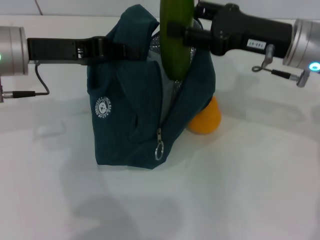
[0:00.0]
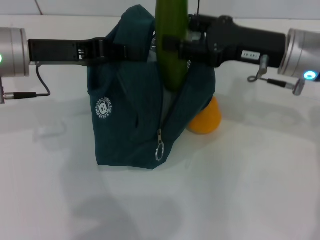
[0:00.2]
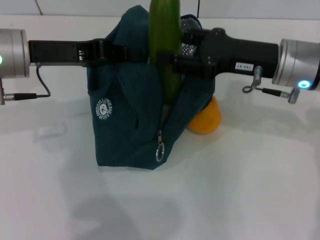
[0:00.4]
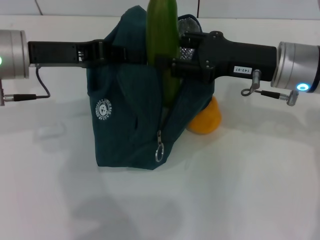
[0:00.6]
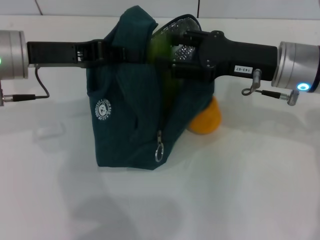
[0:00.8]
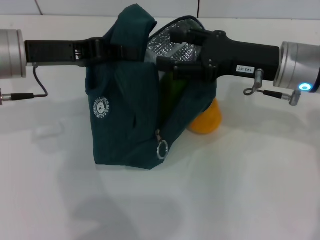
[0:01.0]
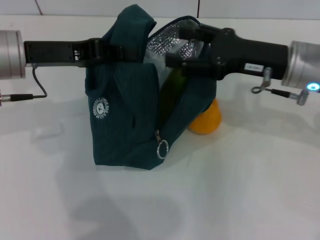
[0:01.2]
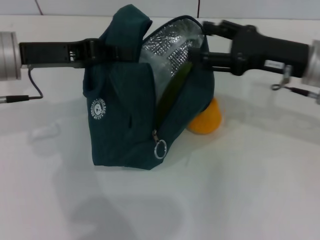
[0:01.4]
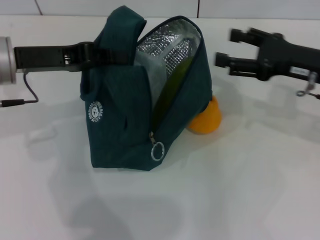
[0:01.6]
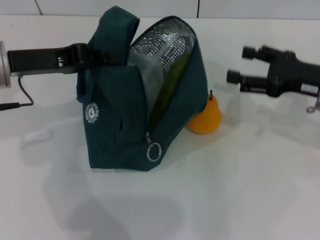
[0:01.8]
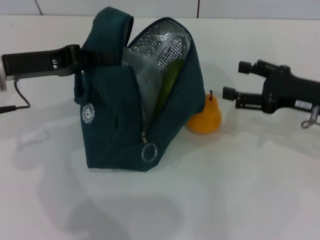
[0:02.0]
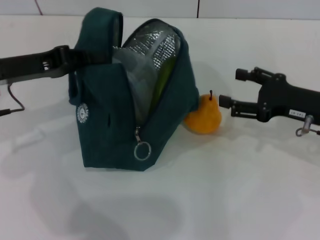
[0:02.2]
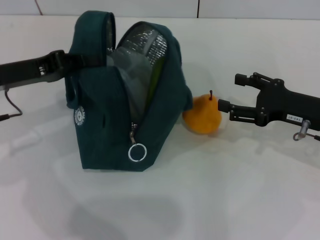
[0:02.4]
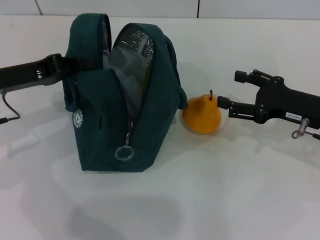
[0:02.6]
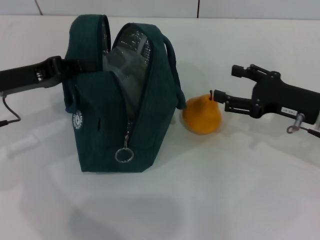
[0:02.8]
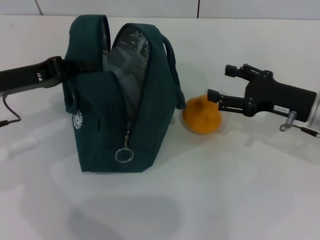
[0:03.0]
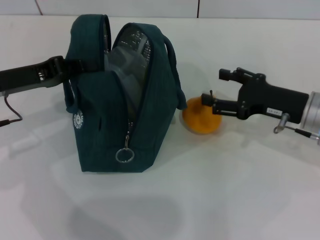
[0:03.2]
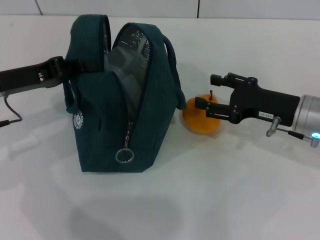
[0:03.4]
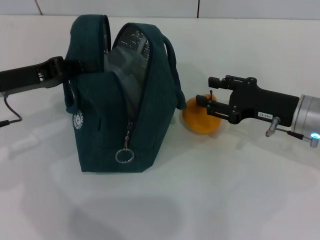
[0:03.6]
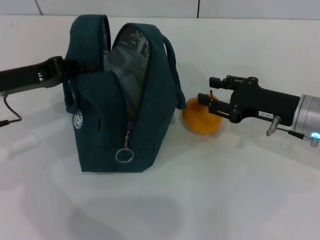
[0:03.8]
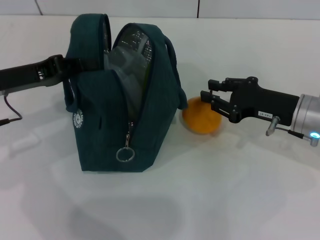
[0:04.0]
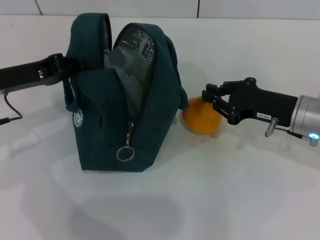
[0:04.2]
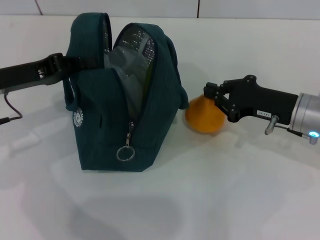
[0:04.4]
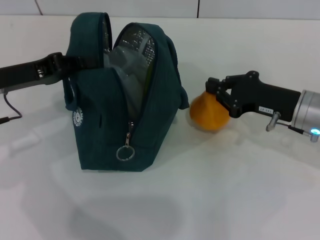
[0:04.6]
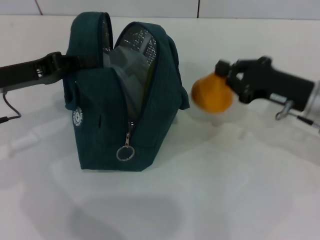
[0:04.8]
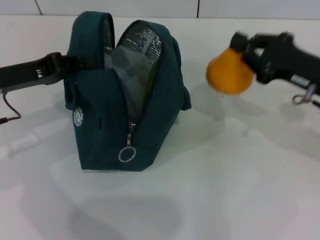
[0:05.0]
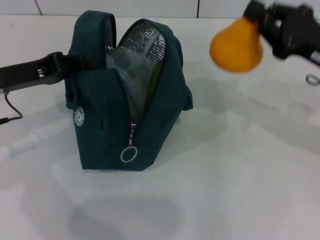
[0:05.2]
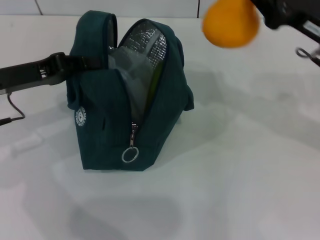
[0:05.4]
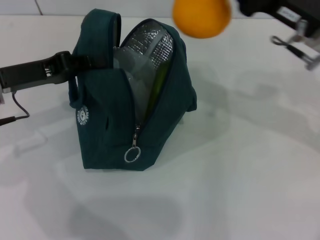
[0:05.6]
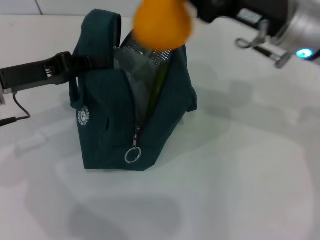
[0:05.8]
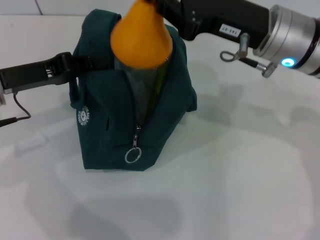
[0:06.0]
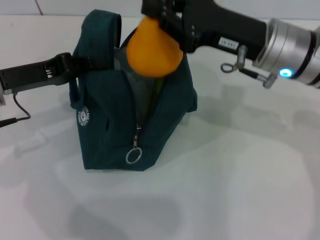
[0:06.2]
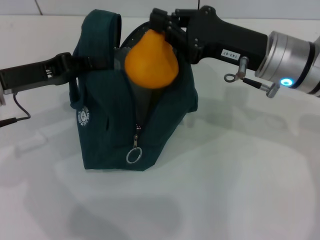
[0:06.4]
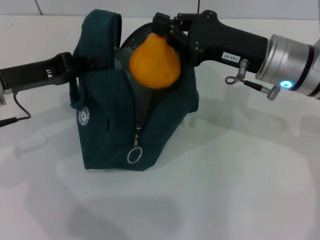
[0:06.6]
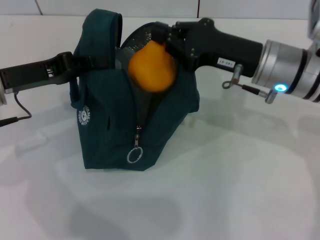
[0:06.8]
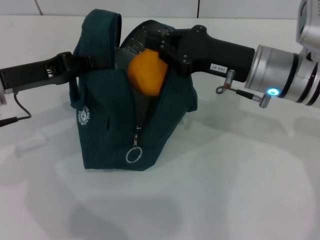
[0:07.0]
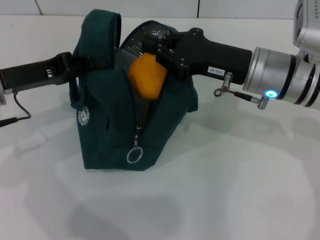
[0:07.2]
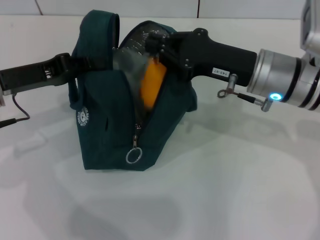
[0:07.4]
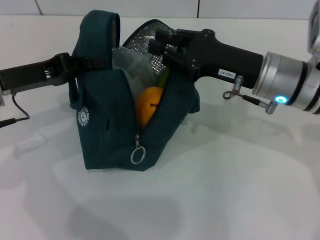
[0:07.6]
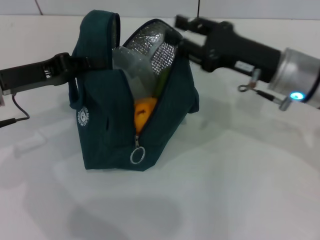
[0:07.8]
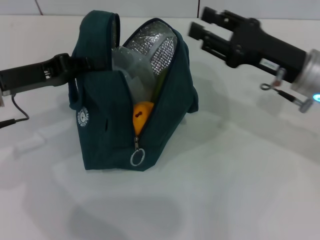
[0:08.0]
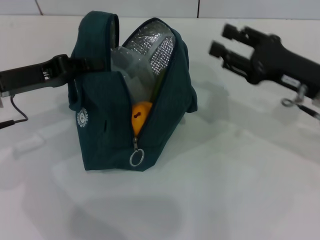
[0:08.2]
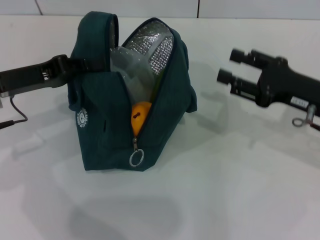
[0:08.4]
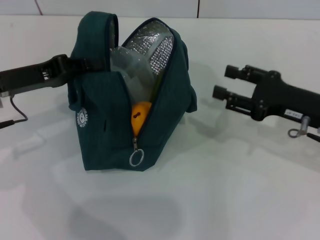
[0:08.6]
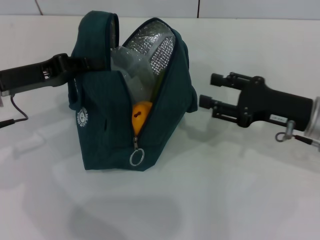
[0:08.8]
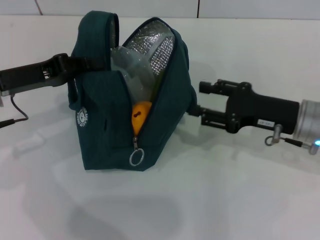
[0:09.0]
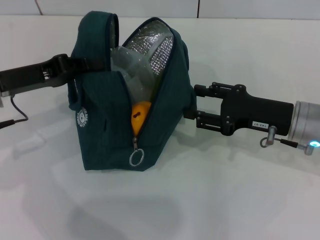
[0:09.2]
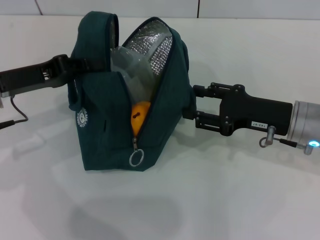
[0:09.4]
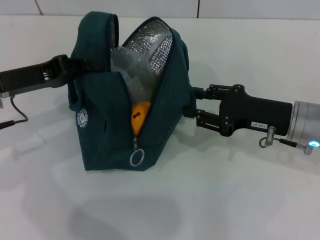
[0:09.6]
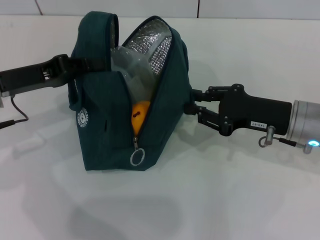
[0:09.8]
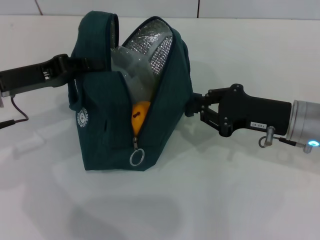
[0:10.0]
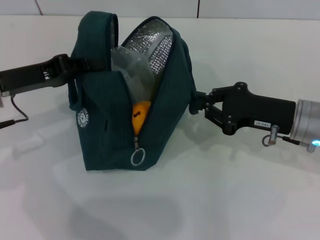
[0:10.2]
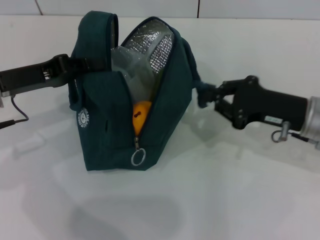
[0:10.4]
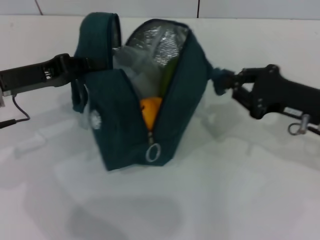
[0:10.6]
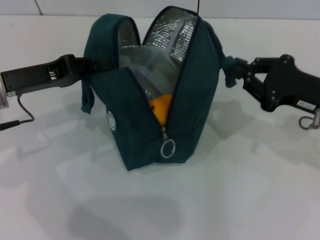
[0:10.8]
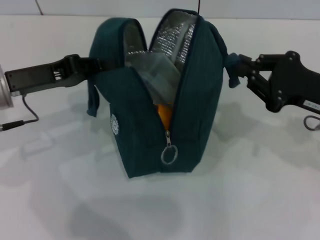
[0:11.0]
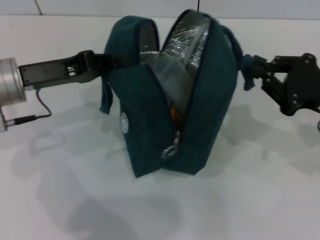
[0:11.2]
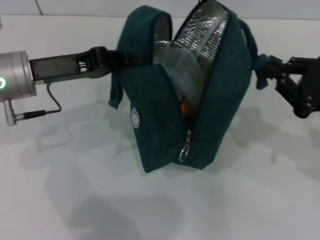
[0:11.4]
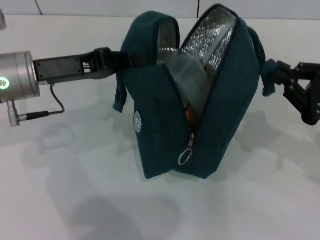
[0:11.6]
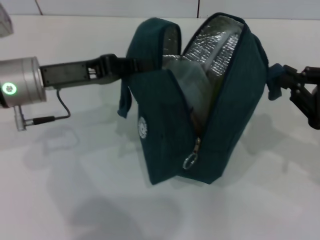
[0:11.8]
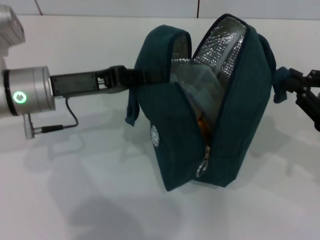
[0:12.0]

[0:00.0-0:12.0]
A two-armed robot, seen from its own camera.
Step, 0:01.4 to 0:04.2: Grab the pear with your right hand.
0:00.0 to 0:01.6: The right gripper shifts about 5 cm to the right.
0:01.6 to 0:03.0: The right gripper shifts roughly 5 cm downward; the left gripper changes place by about 5 cm.
0:03.0 to 0:04.4: The right gripper closes.
0:04.4 to 0:06.0: The right gripper goes about 15 cm upward and to the left.
0:06.0 to 0:07.6: The right gripper goes approximately 5 cm downward.
0:07.6 to 0:09.0: The right gripper moves to the right, some 5 cm, and opens up.
0:09.0 to 0:10.4: The right gripper closes.
0:10.4 to 0:12.0: The right gripper goes approximately 10 cm to the right and backward; the left gripper is displaced to the right by roughly 5 cm.

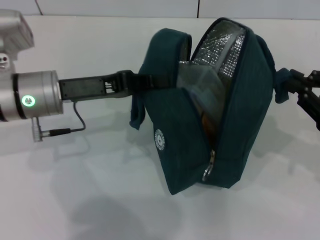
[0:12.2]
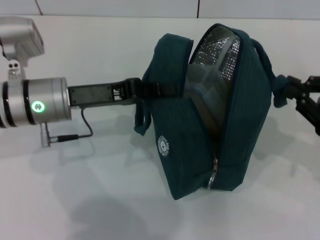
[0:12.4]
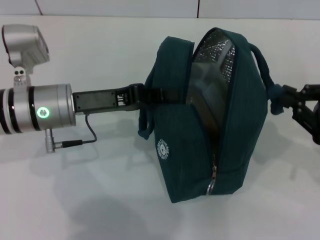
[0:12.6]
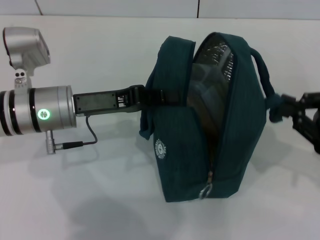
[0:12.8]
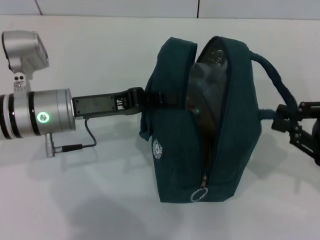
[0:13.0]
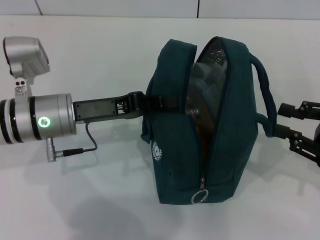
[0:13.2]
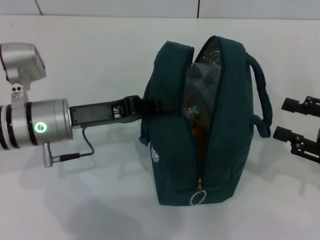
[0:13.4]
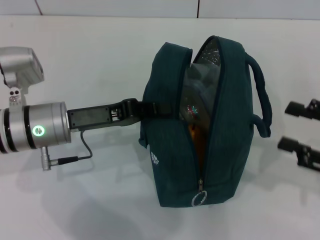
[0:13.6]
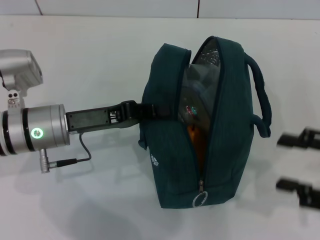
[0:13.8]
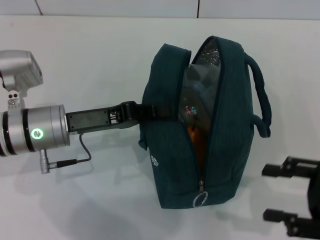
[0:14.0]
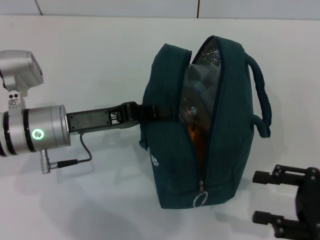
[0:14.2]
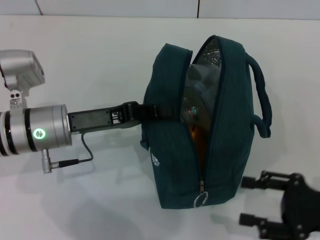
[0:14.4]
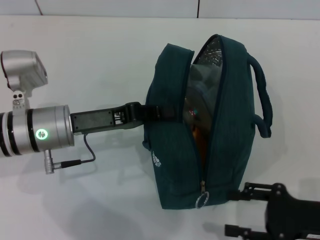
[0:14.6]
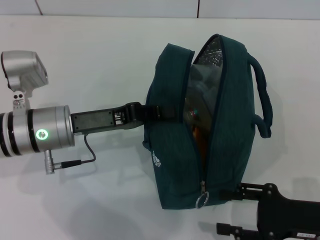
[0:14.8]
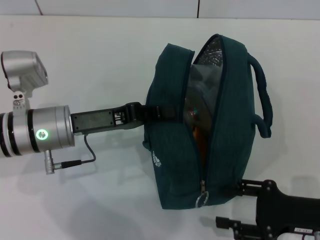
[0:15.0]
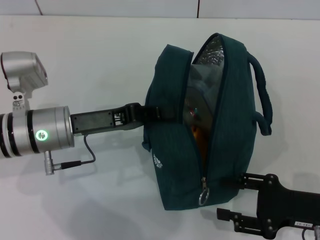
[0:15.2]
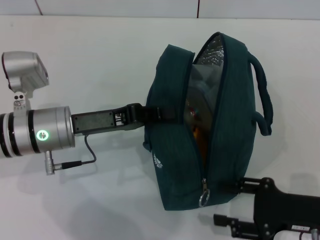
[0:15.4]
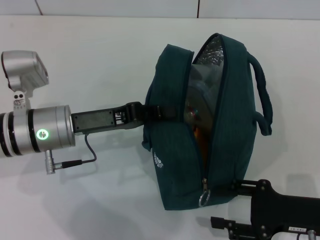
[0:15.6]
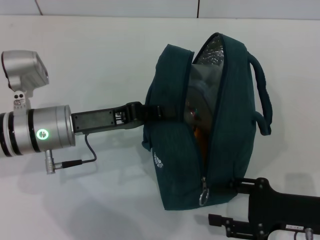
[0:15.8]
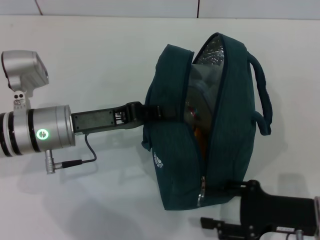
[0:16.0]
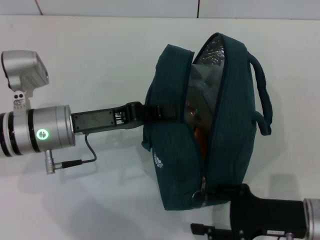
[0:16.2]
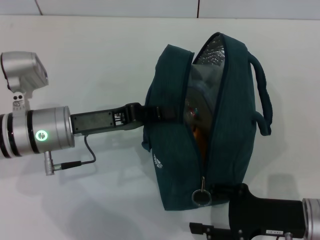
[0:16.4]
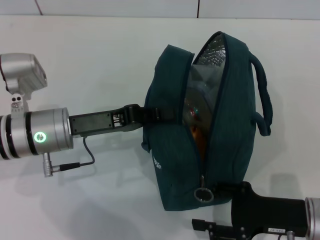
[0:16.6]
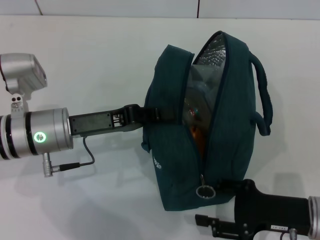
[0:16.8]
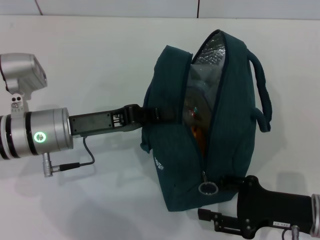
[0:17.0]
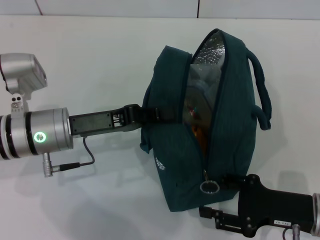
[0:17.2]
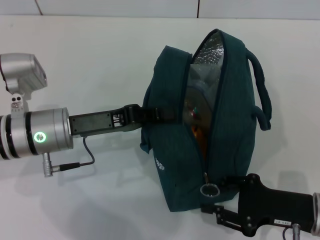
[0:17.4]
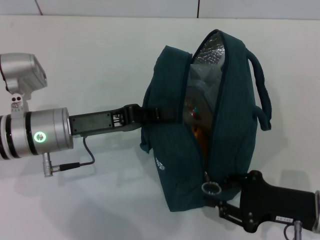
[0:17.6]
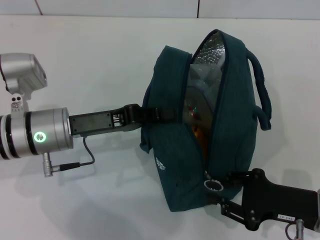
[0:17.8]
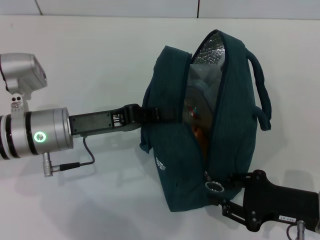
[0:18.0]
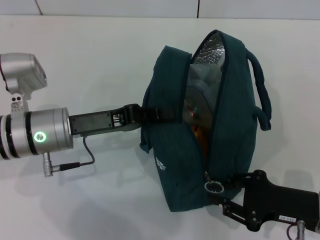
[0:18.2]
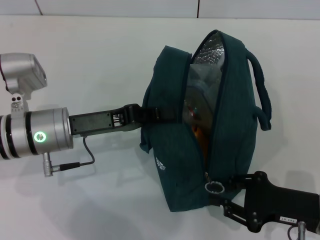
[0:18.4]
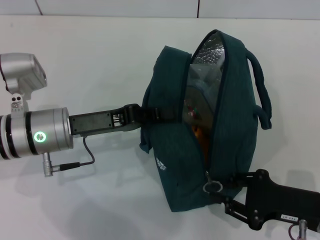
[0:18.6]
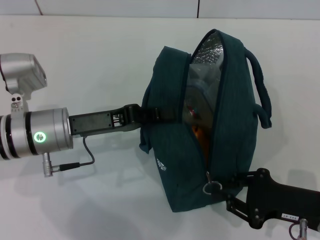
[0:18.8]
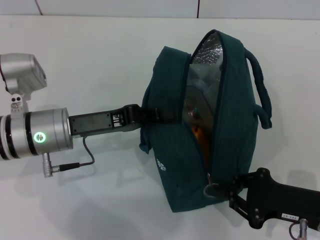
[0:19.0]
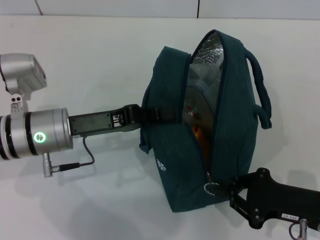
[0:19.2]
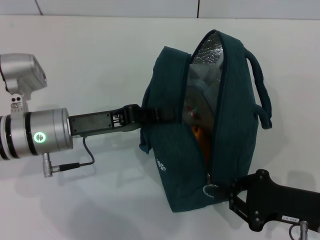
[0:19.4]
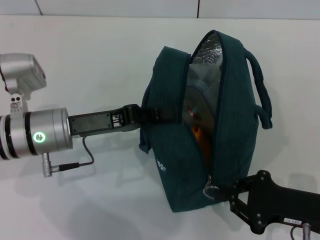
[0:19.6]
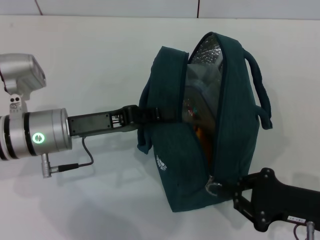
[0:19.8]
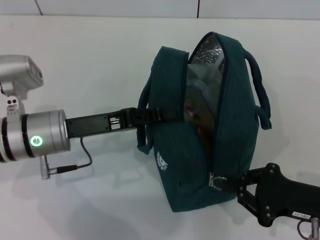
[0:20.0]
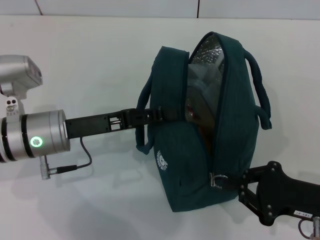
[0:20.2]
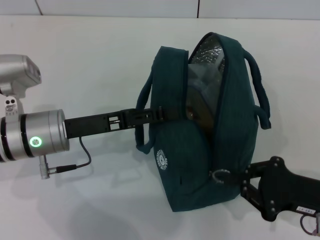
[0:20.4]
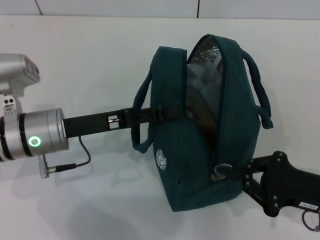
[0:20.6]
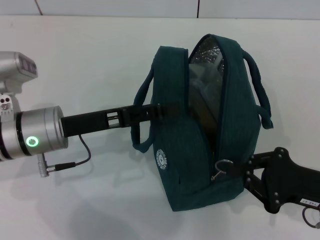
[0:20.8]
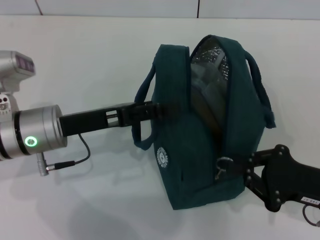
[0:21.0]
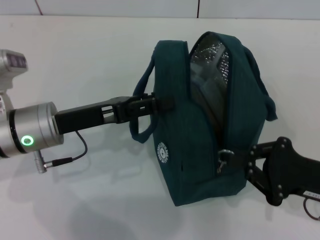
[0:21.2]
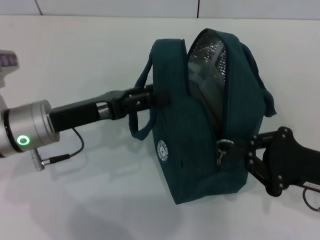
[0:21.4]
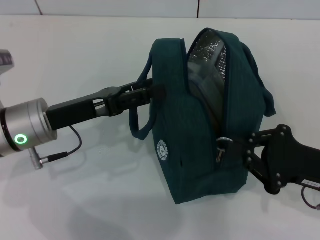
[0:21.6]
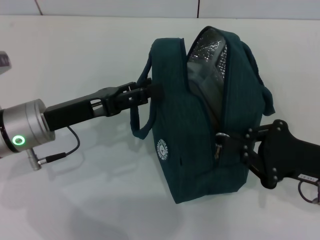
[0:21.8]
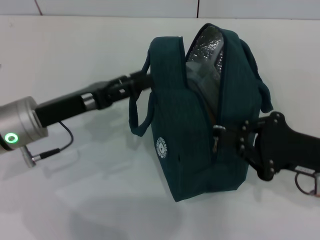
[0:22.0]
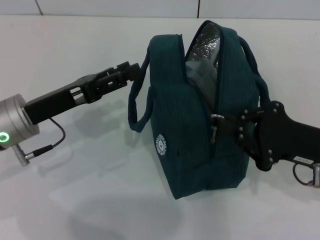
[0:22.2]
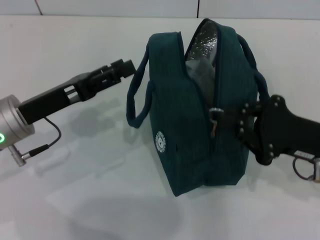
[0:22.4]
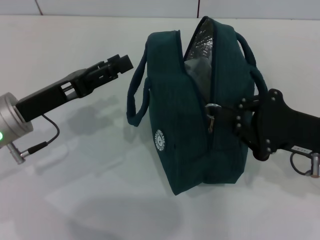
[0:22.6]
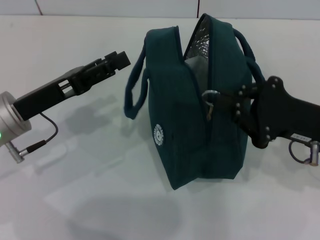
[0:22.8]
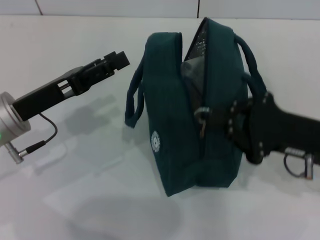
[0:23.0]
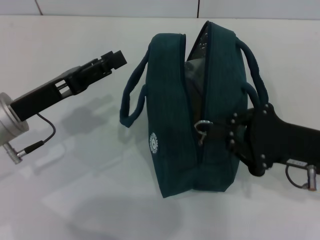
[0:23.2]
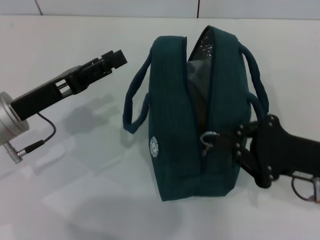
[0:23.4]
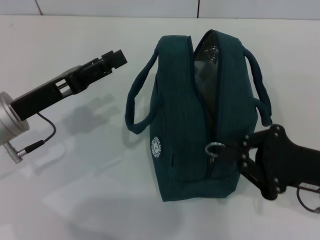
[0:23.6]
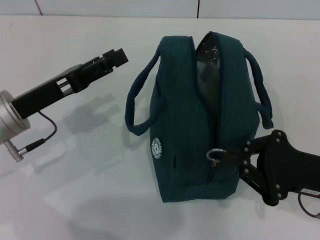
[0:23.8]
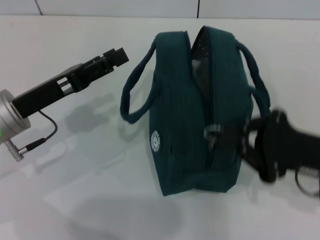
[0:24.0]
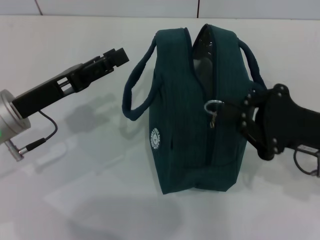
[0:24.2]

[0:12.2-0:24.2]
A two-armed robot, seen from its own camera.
Step, 0:13.4 to 0:21.8: Hold the lunch bag with your left hand.
0:12.2 to 0:13.8: The right gripper moves about 5 cm, and opens up.
0:13.8 to 0:15.2: The right gripper travels downward and to the left by roughly 10 cm.
0:15.2 to 0:16.6: The grippers move only a little.
0:16.6 to 0:18.2: The right gripper closes.
0:18.2 to 0:19.8: The two grippers keep their place.
0:19.8 to 0:21.2: The left gripper opens.
0:21.2 to 0:22.6: The right gripper moves some 5 cm.
0:22.6 to 0:24.2: The grippers stay close to where they were, moving slightly.
